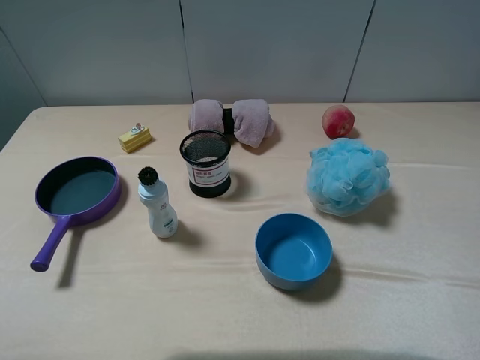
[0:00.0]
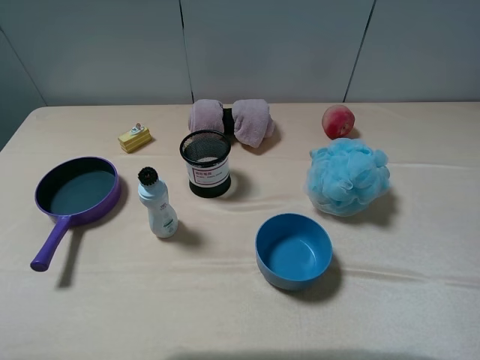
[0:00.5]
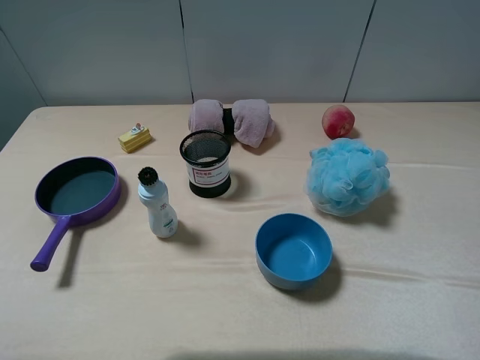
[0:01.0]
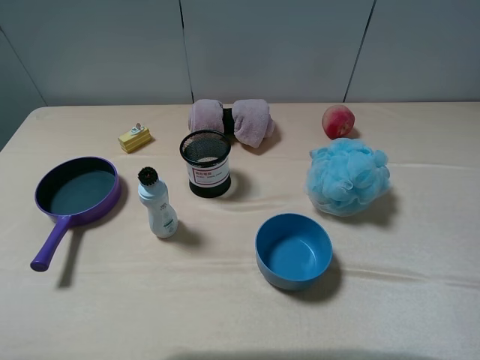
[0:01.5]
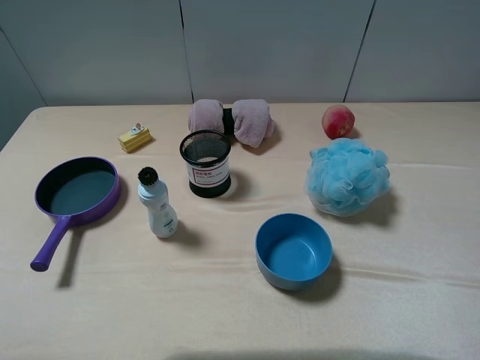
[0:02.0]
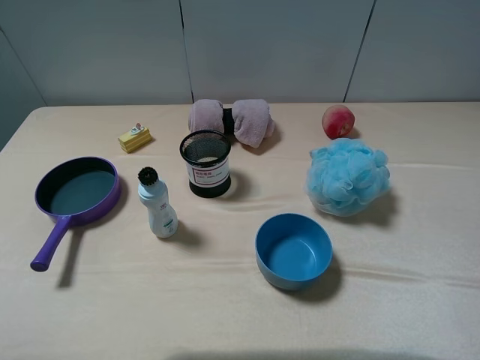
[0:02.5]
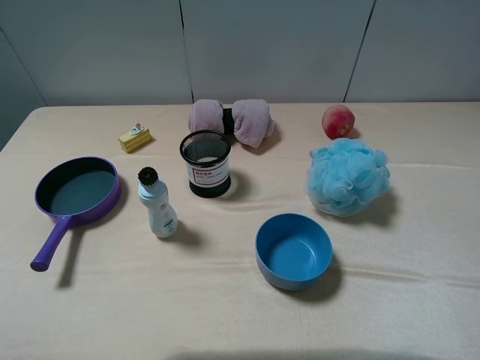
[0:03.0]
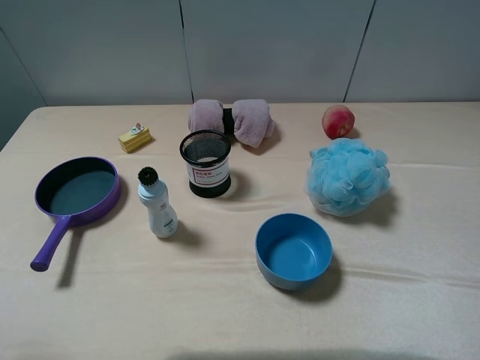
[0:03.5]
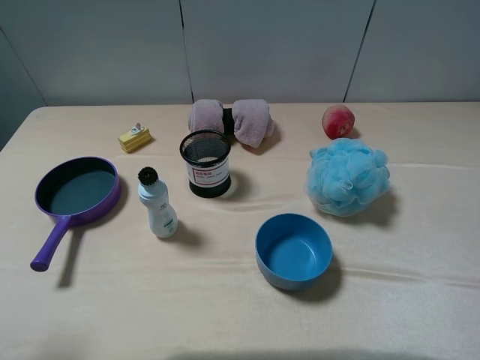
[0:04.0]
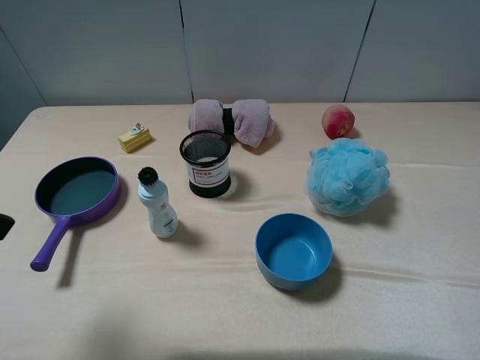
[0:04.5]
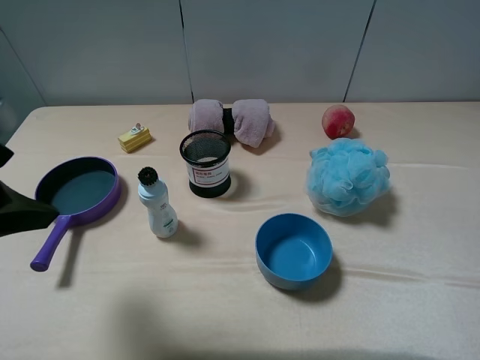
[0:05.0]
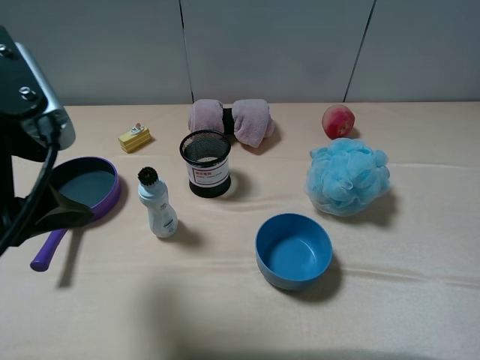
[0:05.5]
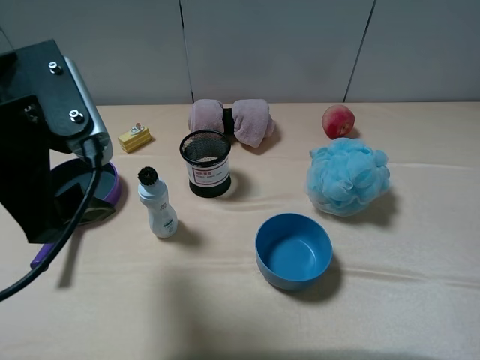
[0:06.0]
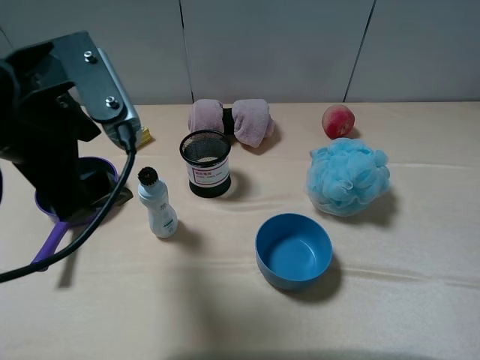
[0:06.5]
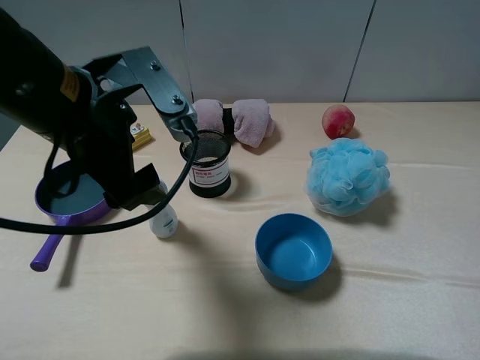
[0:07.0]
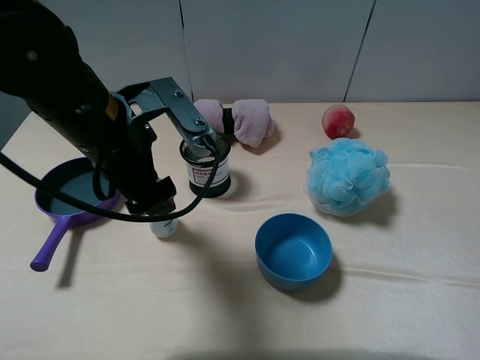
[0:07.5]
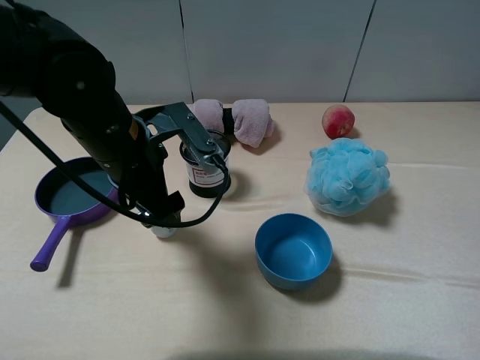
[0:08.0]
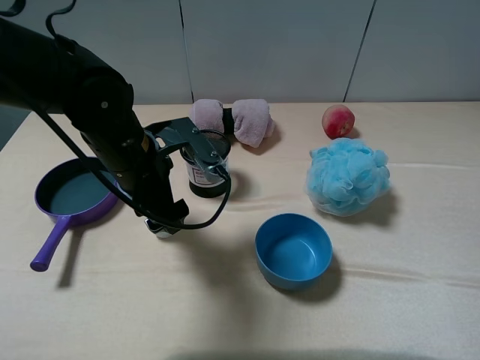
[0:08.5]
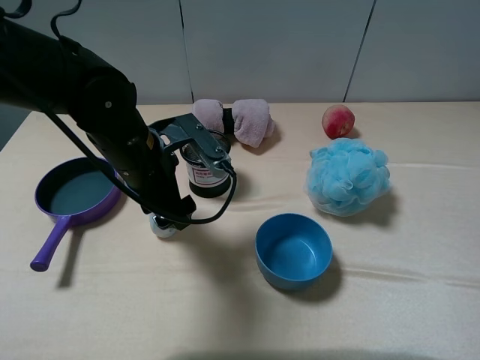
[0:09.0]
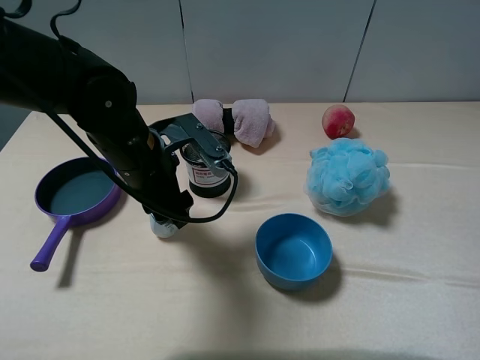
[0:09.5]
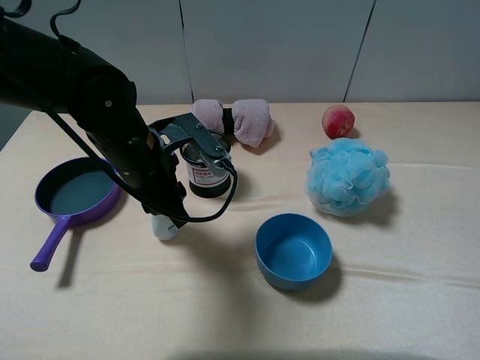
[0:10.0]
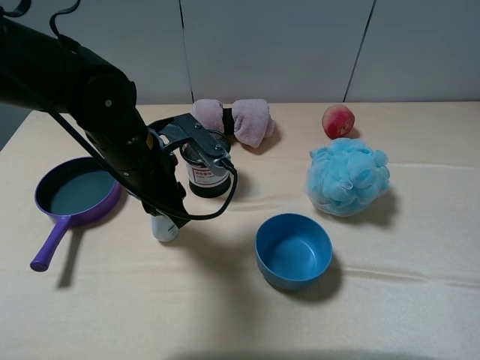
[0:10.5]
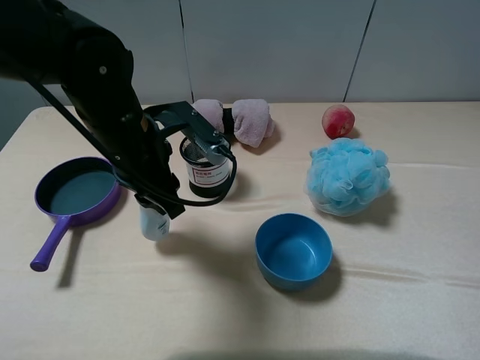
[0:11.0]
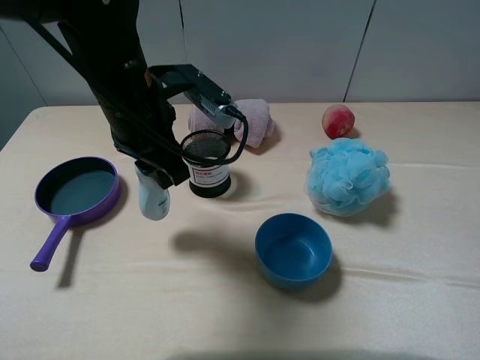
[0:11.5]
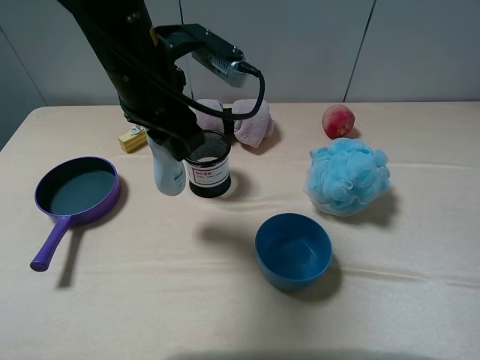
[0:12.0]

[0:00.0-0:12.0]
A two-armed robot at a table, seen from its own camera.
Task of the whole recording: pick up an item with a gripper and place it in a random container on the table.
Step, 0:00.0 to 0:10.0: Grasp the cleaning agent with the left gripper.
0:00.0 to 0:02.0: Both grippers stay about where they are.
0:04.0 to 0:06.0: The left gripper heads to the right and forward, covering some 15 cm.
0:06.0 to 0:08.0: The left gripper shifts roughly 15 cm downward, forward and to the right.
0:08.0 to 0:10.0: The left gripper closes its fingers.
0:10.0 to 0:12.0: The left gripper heads upward, covering approximately 10 cm.

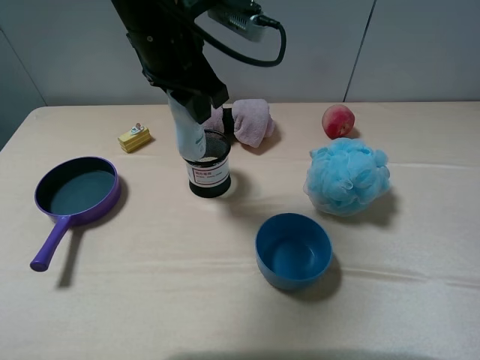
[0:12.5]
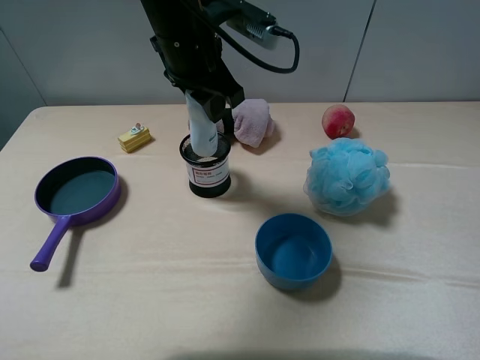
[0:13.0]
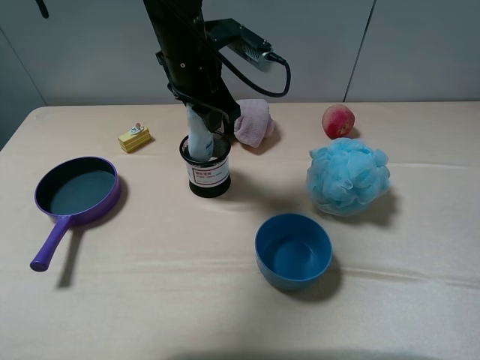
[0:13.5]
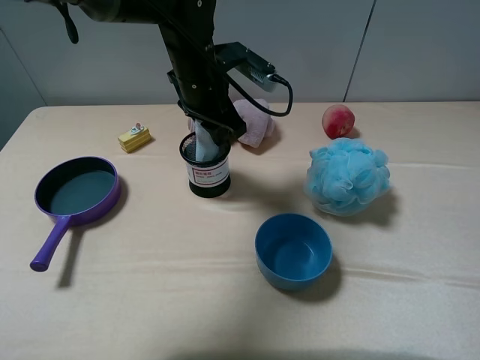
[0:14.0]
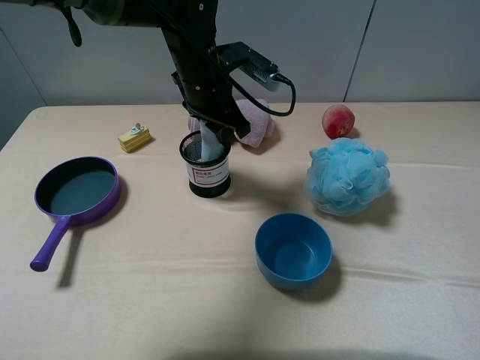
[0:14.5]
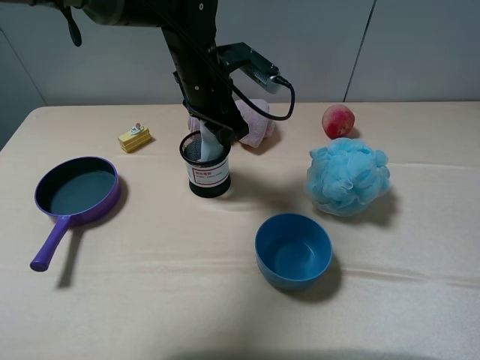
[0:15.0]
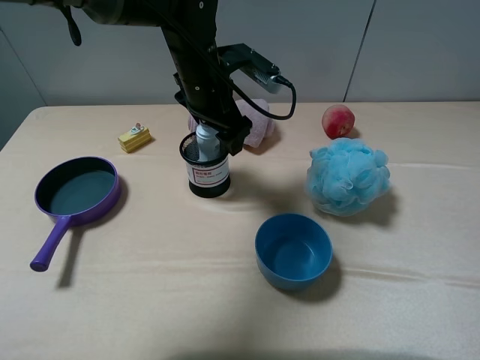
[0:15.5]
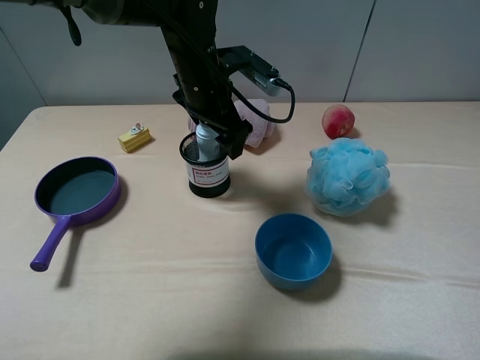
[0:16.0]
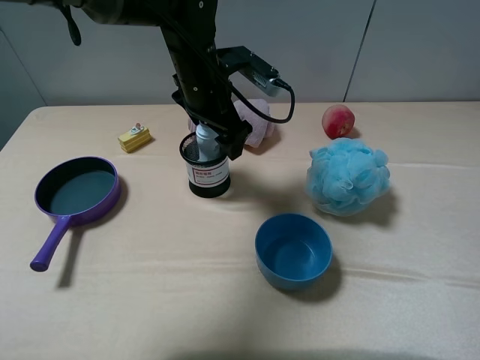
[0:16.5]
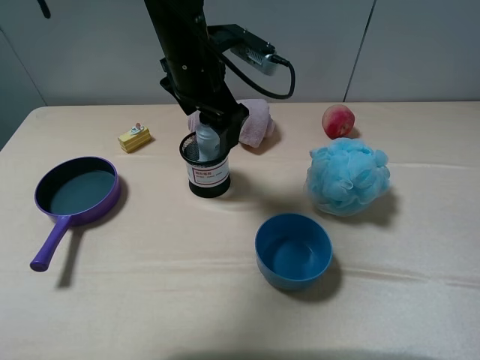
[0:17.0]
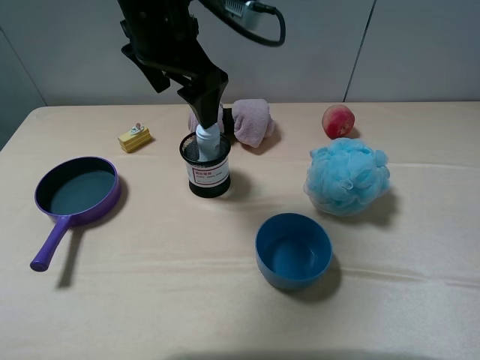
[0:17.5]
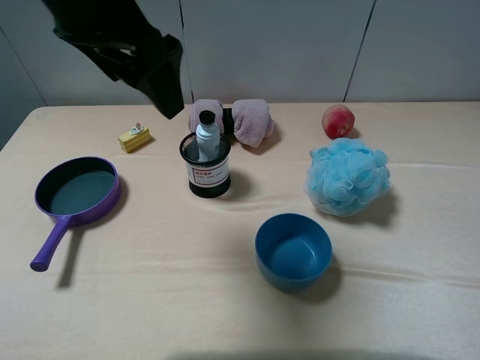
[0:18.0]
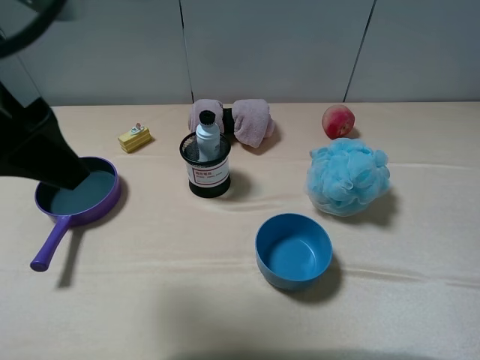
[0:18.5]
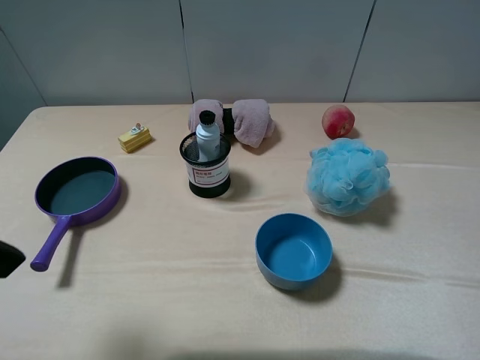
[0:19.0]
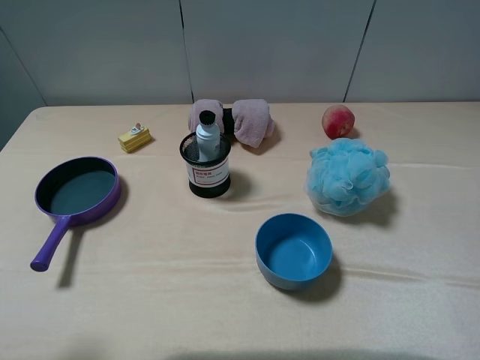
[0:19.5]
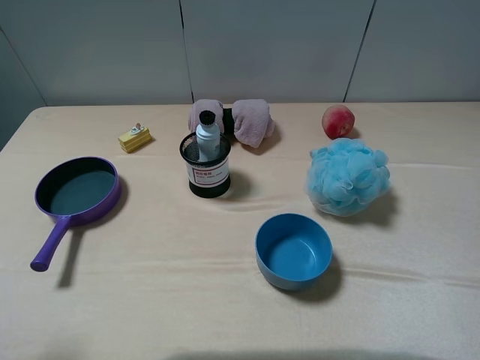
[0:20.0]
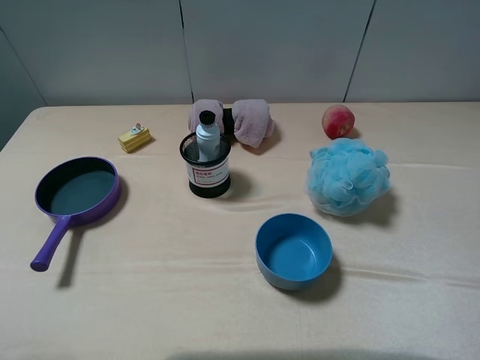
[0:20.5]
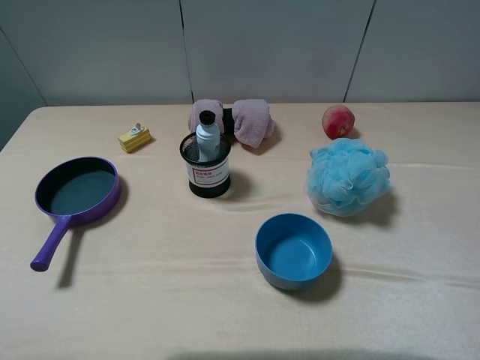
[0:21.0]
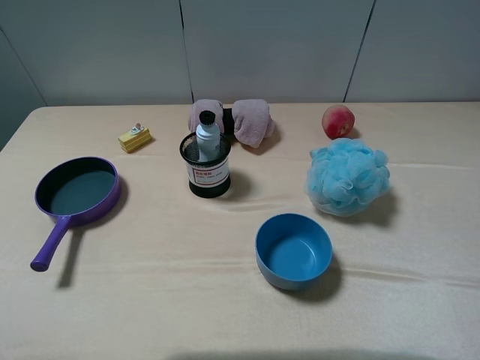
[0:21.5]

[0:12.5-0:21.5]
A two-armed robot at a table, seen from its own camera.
Task of the whole recording: pick up an item with a gripper and place it in a random container on the table.
Step, 0:12.5 to 0:15.5: Place the cleaning agent into the pen container with the left gripper.
0:12.5 to 0:14.5: The left gripper shifts approximately 10 cm downward and forward.
0:14.5 to 0:17.0: The left gripper opens its fingers.
0:17.0 to 0:19.5: The left gripper goes approximately 35 cm backward and to the left.
